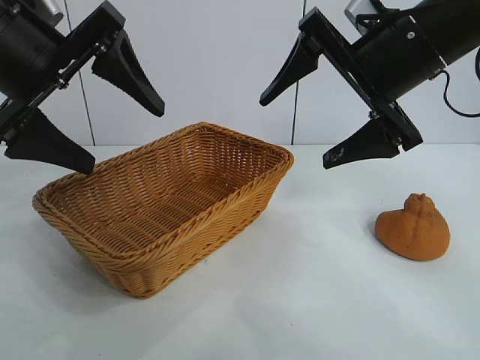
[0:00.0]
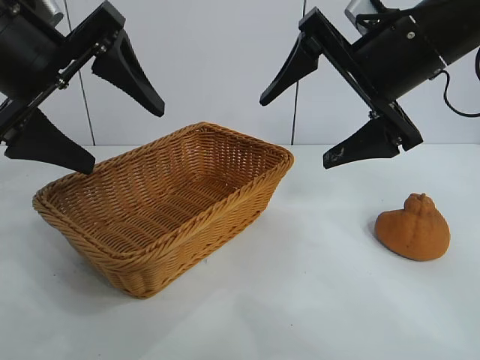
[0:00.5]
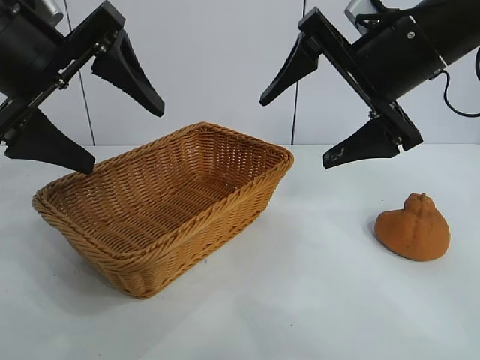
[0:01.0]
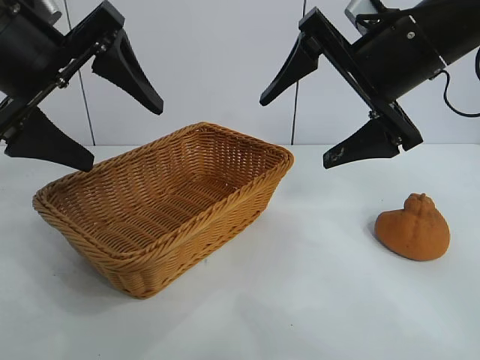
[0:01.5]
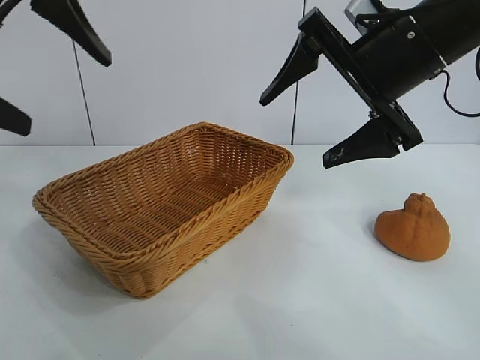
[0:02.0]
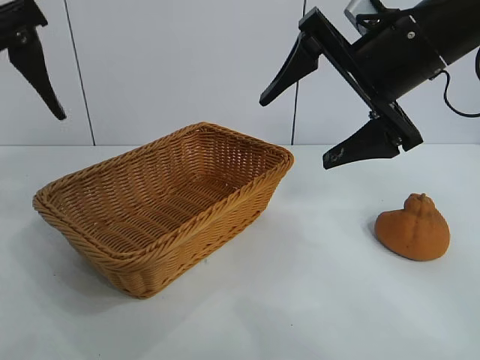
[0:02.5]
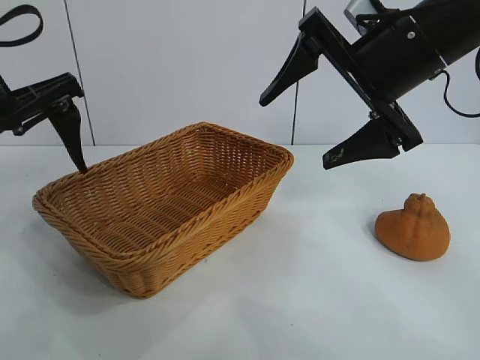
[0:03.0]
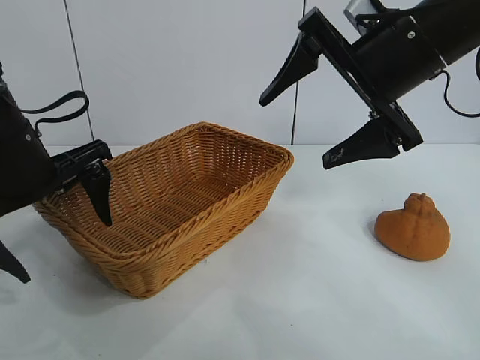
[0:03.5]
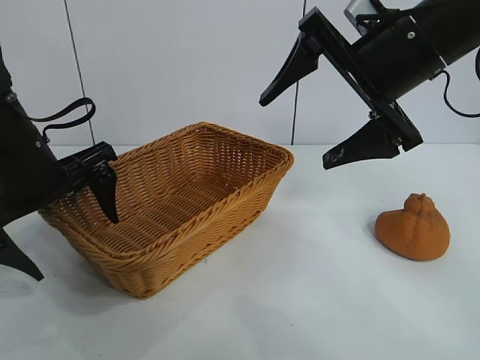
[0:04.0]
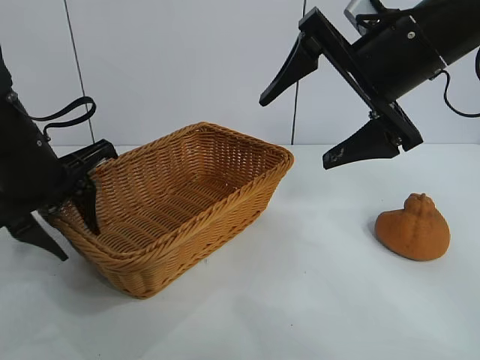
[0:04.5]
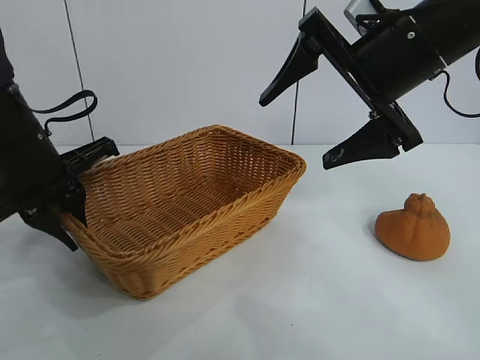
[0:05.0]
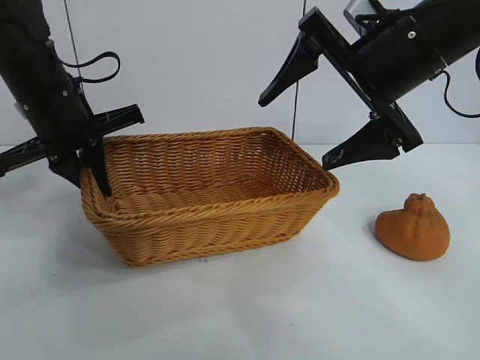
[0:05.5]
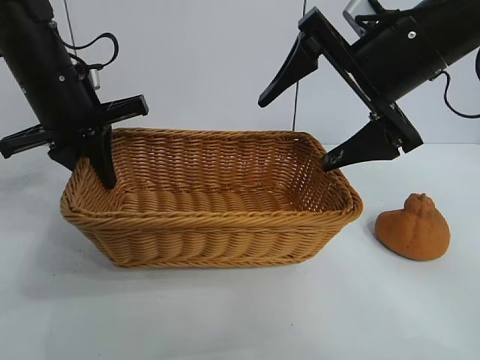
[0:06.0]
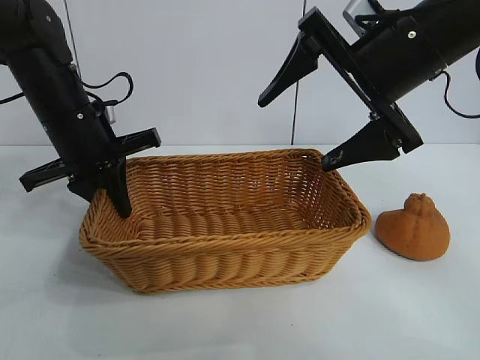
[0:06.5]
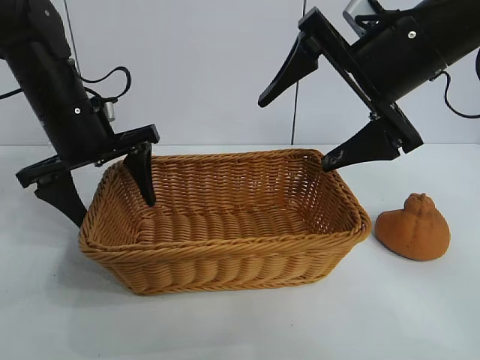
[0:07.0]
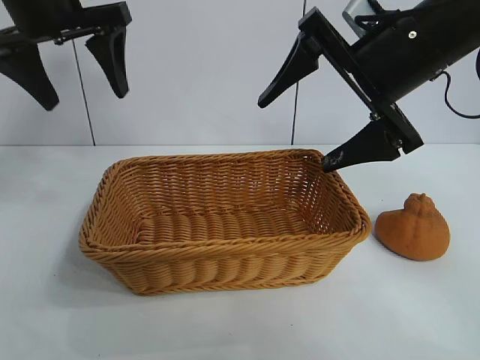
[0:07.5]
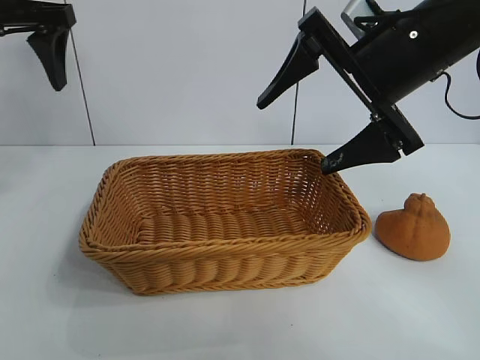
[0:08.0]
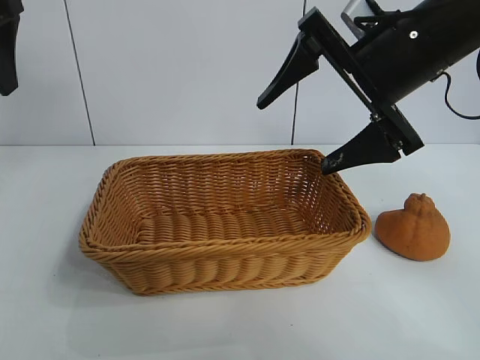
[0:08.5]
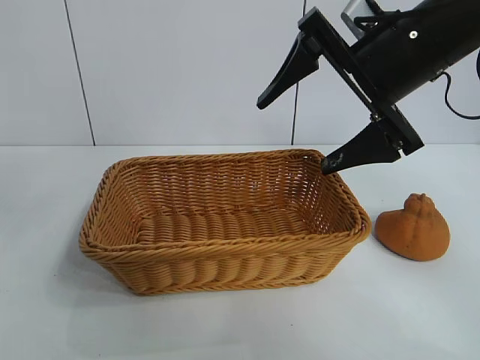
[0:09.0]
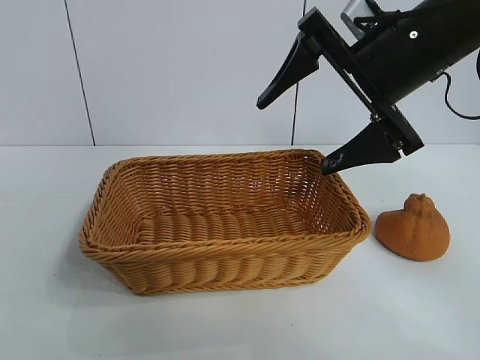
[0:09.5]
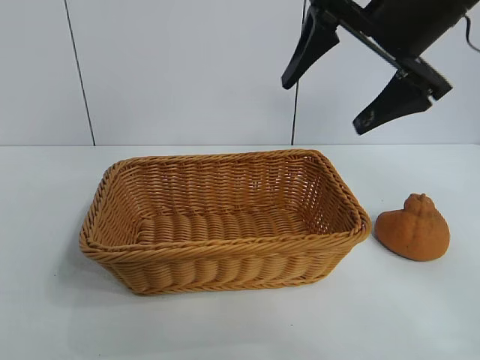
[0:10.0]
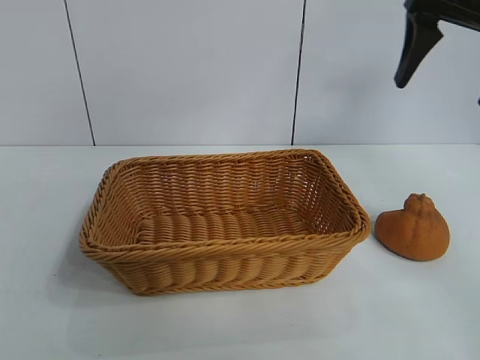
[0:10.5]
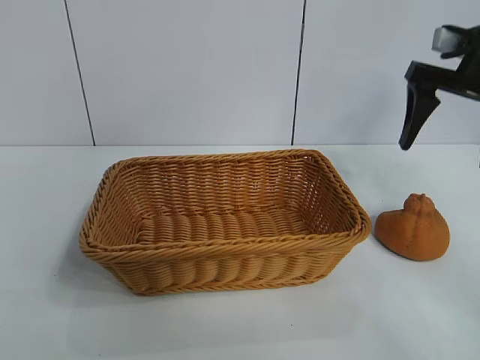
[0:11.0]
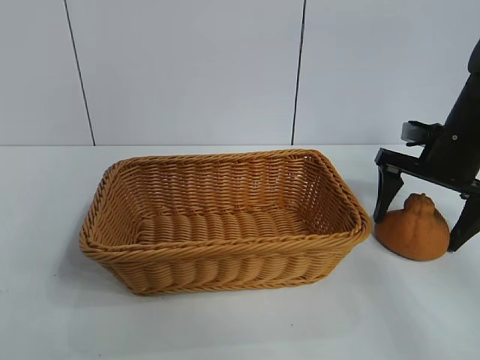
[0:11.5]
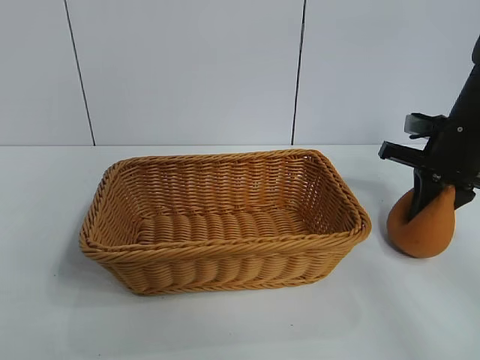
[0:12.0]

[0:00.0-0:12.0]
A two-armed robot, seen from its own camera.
Task of the whole recording: pick up the orange and put it into the basket.
Step, 0:01.0 to 0:04.5: Grasp the basket with left gripper.
Step, 0:05.0 to 0:06.5: Place the basket in the center of view with left gripper.
Step, 0:07.0 to 0:11.5: Grasp the orange with right gripper.

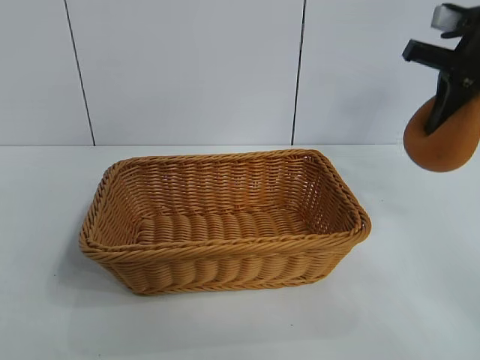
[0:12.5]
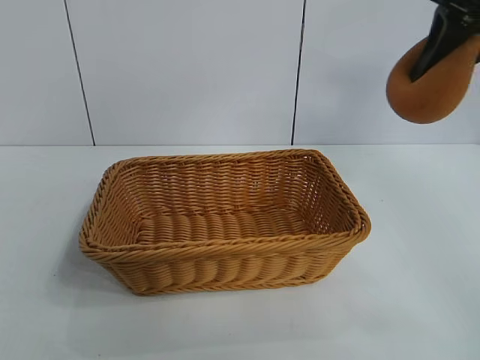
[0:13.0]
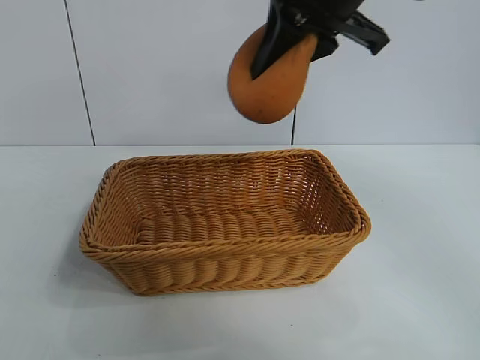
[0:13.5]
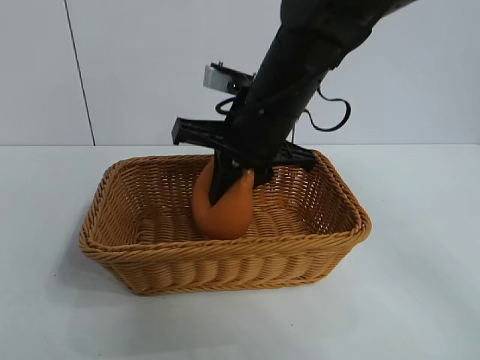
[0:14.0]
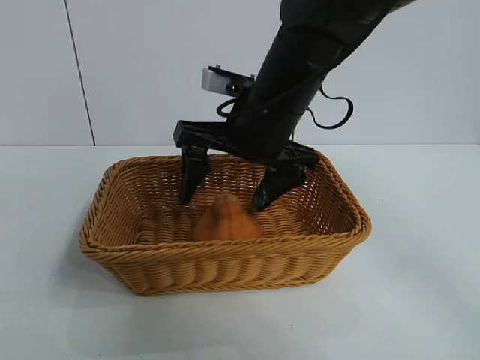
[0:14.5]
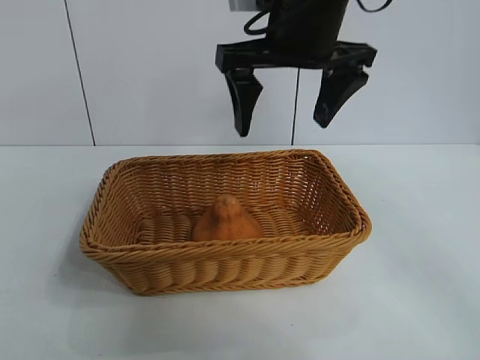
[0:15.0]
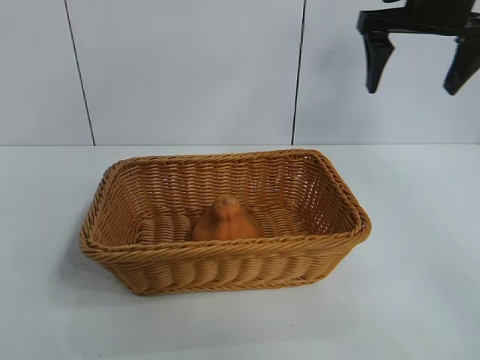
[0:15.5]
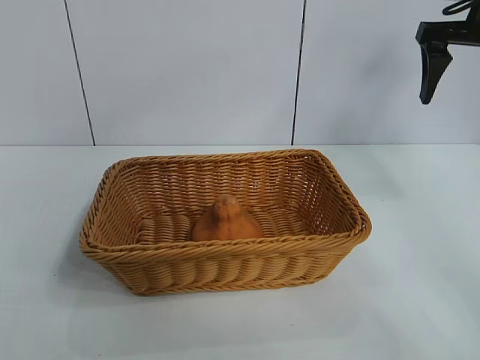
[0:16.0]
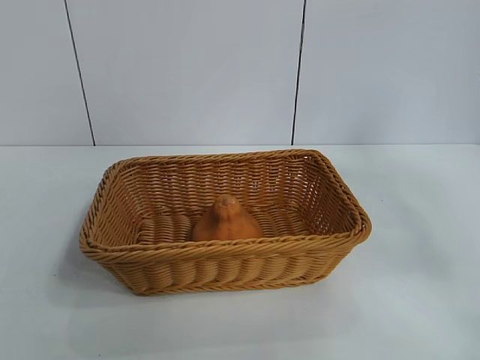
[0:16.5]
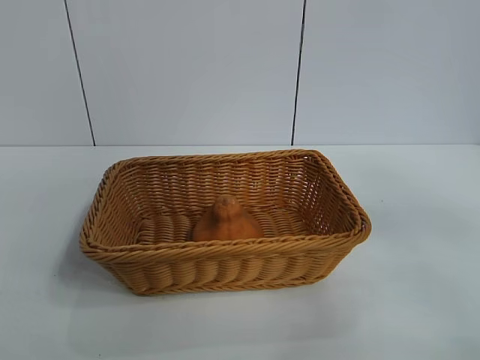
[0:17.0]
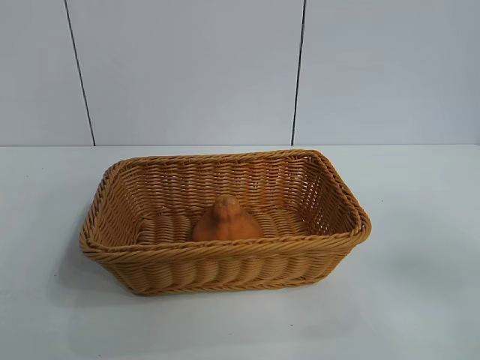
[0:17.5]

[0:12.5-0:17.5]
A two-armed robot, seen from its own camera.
Task of the whole recording: pick up the orange and put it into the basket.
Step, 0:12.5 to 0:14.5: Place the orange in the basket with right gripper.
